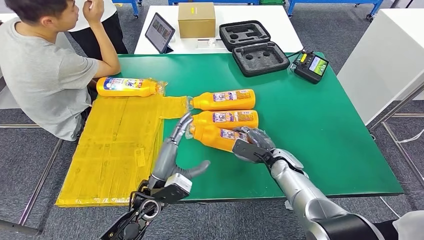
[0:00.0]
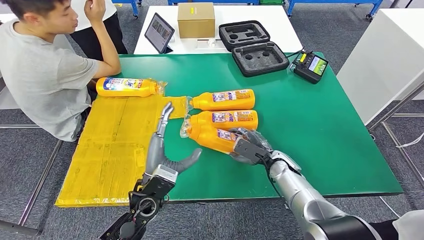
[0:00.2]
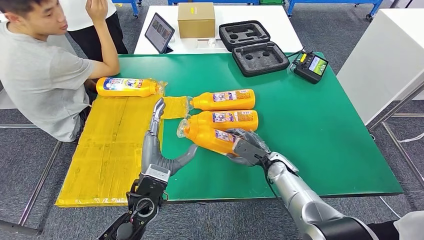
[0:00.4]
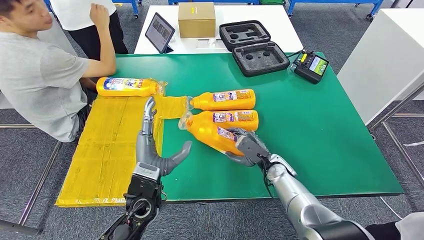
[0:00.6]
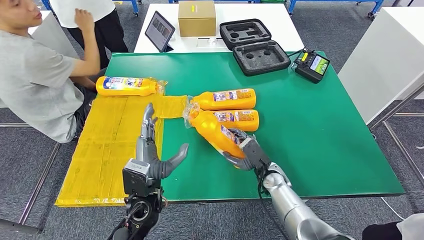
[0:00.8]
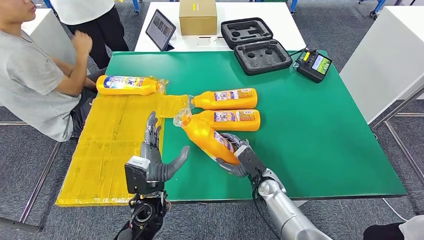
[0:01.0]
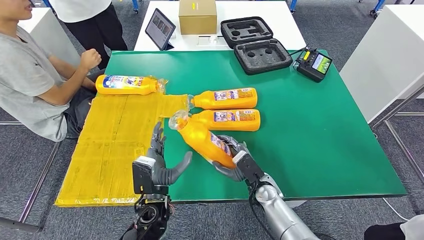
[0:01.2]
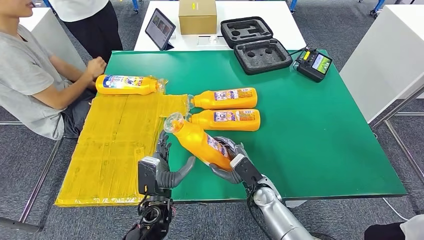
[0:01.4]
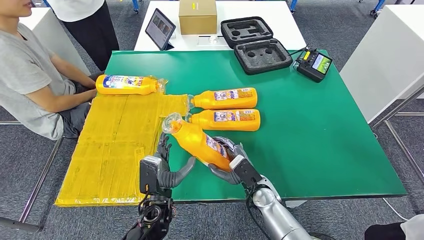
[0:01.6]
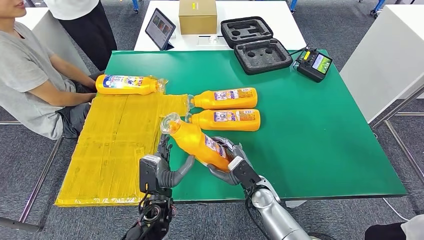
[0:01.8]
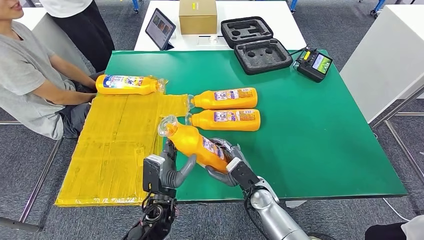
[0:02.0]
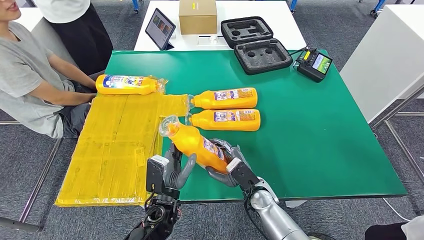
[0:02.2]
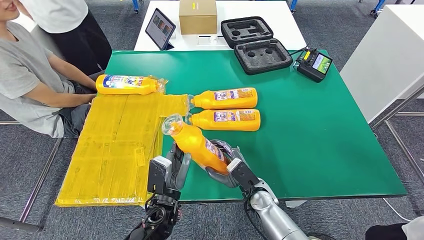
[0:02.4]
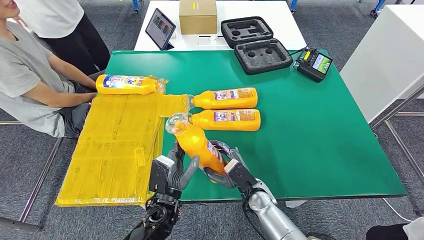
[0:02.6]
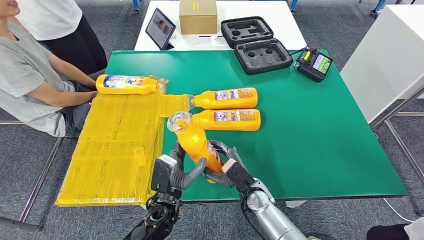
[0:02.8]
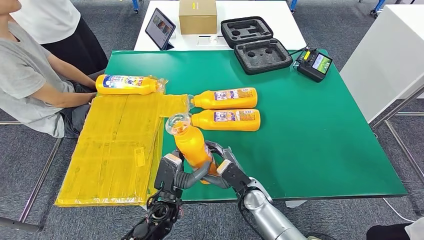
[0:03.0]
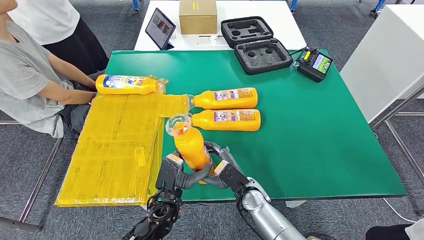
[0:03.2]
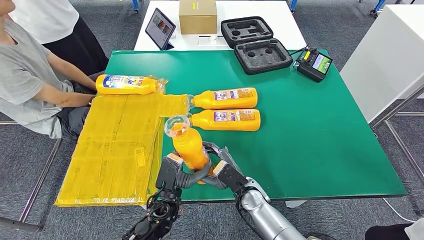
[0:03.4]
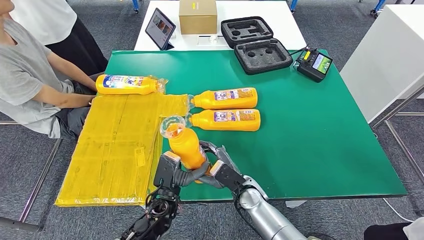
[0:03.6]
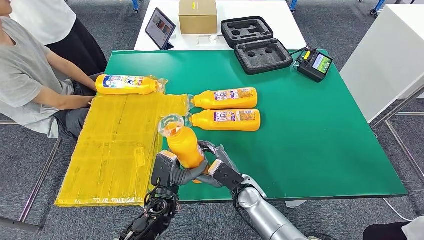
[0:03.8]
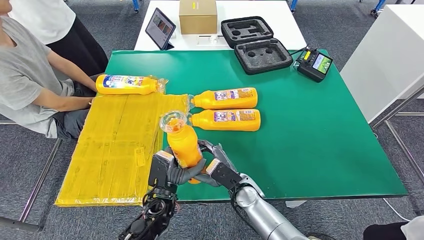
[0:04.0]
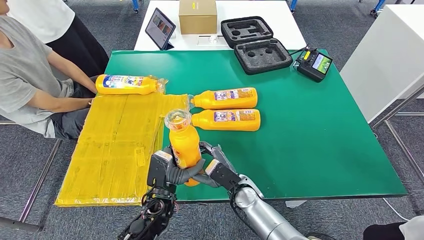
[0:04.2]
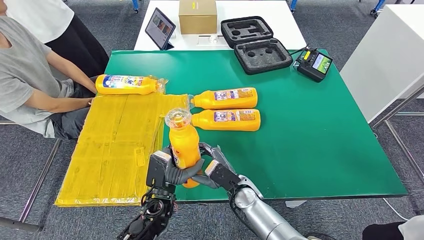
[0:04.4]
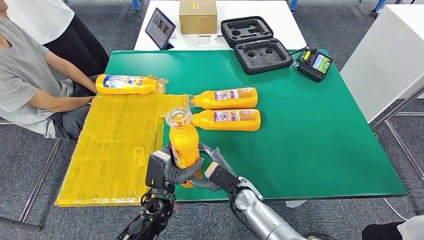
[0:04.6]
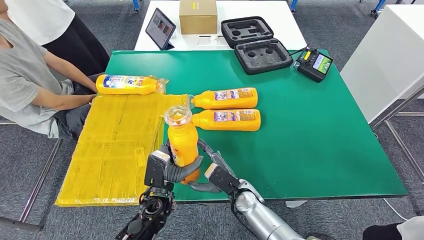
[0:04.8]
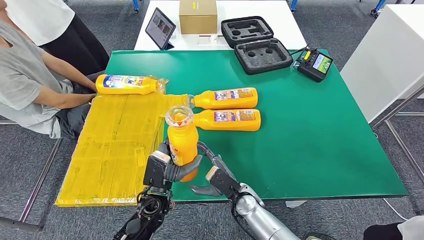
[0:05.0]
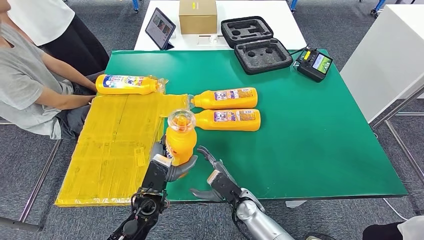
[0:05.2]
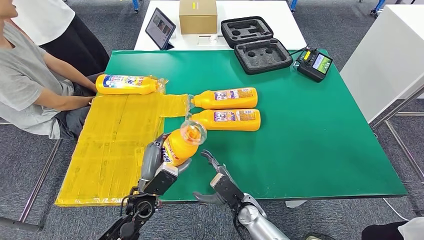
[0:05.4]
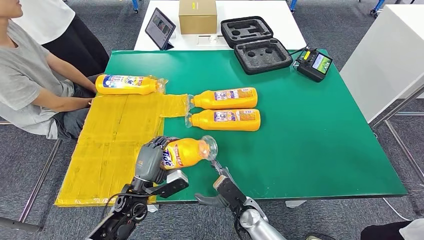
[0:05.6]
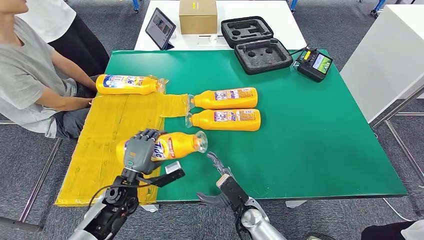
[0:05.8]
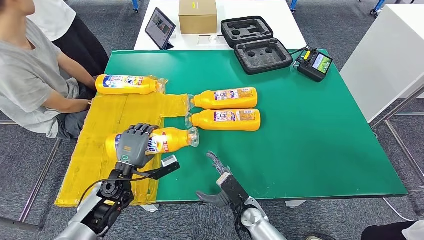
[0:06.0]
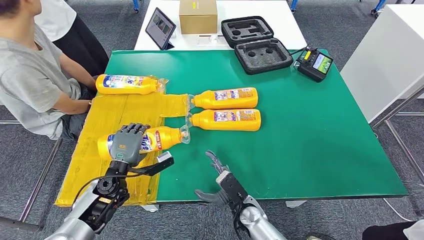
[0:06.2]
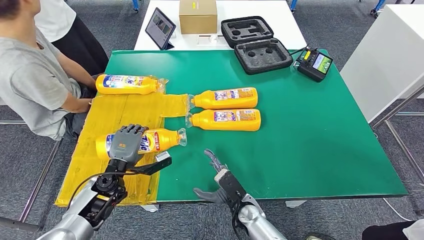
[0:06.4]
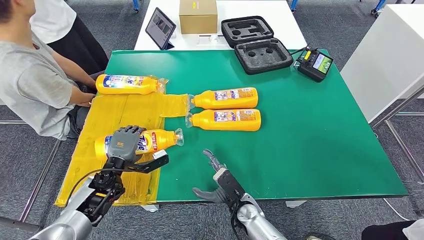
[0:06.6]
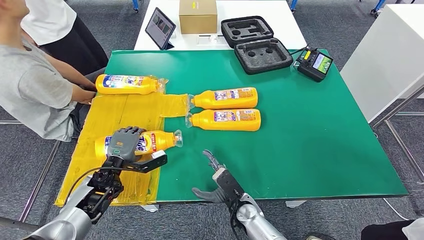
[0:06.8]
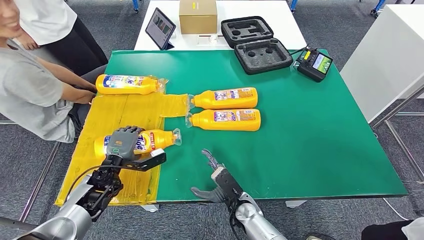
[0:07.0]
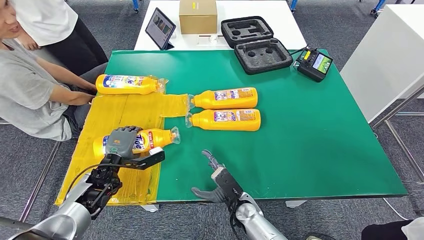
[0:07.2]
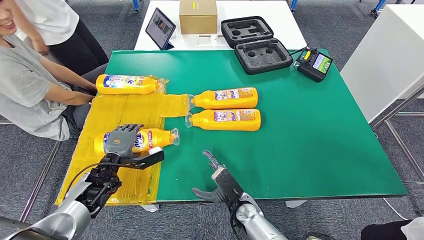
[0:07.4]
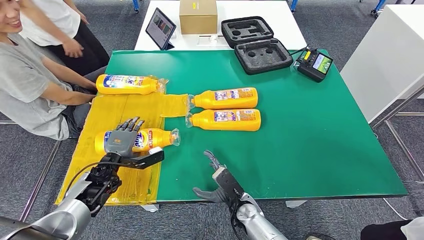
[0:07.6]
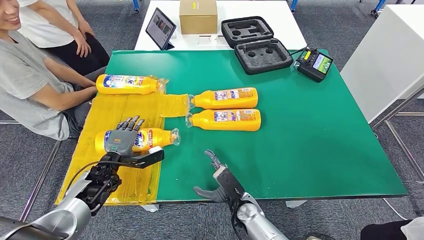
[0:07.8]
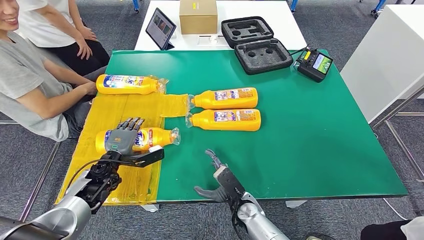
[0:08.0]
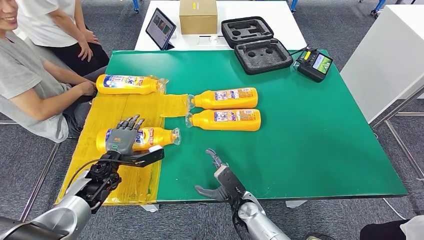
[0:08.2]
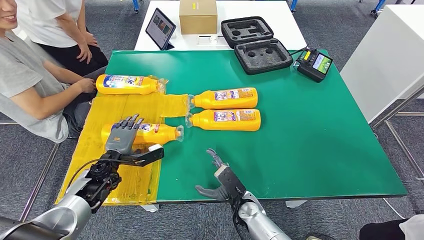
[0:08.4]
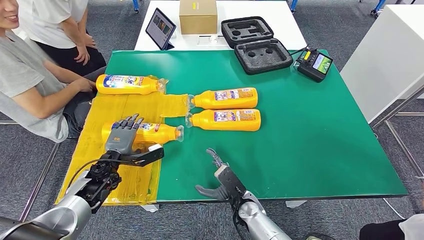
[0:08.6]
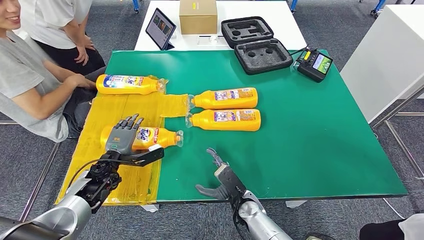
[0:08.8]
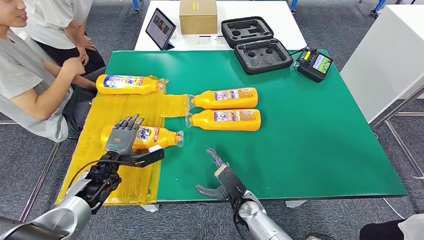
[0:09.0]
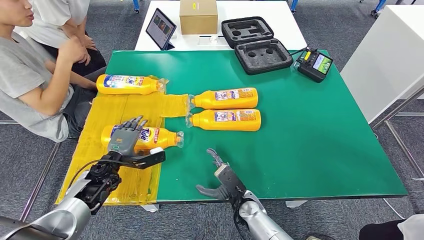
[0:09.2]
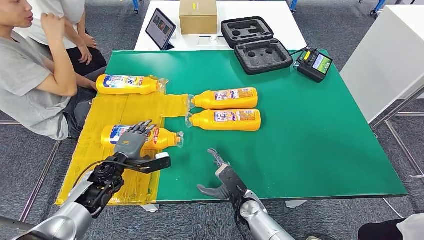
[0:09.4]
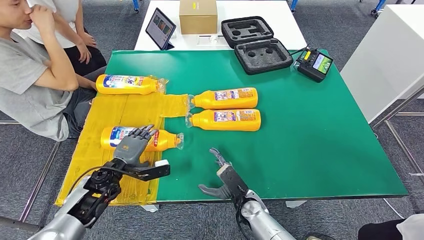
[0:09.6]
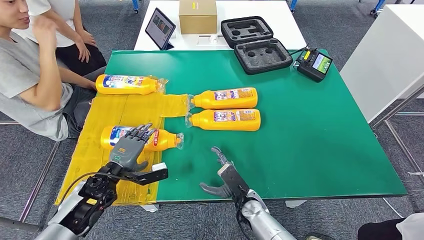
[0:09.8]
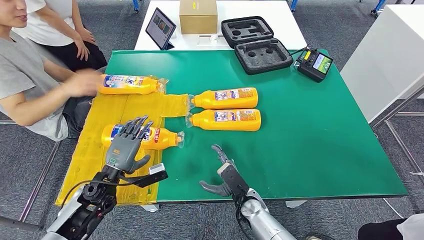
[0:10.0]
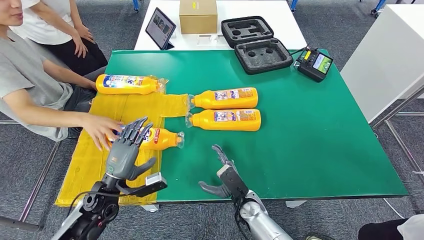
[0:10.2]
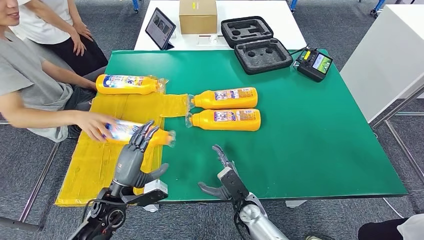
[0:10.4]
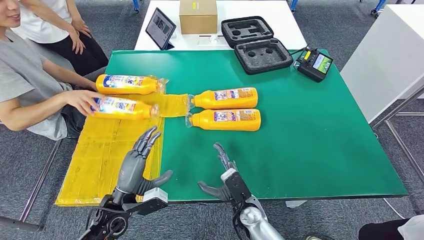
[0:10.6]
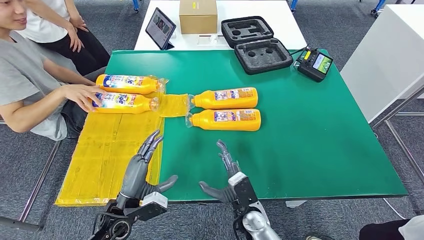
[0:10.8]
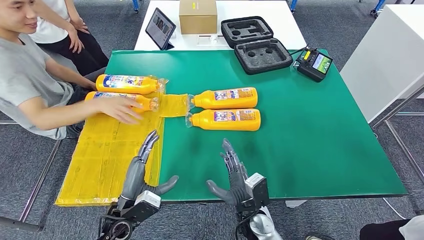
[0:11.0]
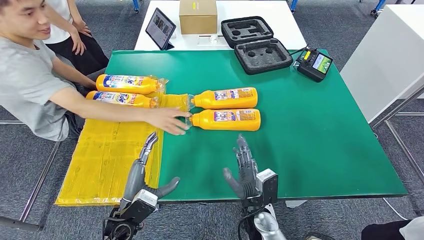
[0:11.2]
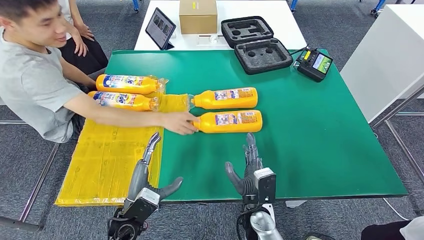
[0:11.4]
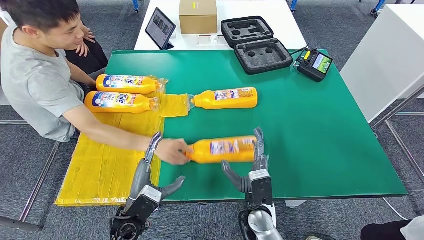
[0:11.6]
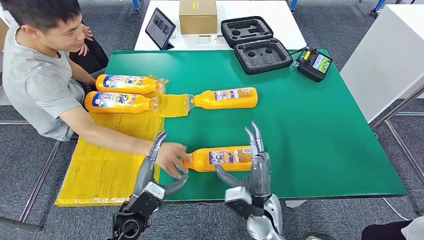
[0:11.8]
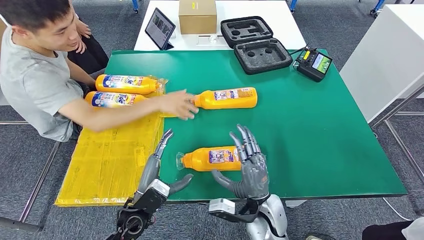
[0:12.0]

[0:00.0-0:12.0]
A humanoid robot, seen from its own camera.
Step, 0:00.0 to 0:02.4: Pick up the bottle from the table.
Step, 0:02.6 to 0:08.0: Flip the bottle to face forward.
0:01.6 to 0:04.4: There are only small adjustments of the hands.
0:04.4 to 0:06.0: The left hand moves to the left and forward, approximately 15 cm. Meanwhile the right hand ends up some 5 cm from where it was.
0:06.0 to 0:07.6: The left hand moves some 5 cm.
0:07.6 to 0:09.0: The two hands keep their place.
0:09.0 to 0:10.4: The left hand goes roughly 10 cm backward.

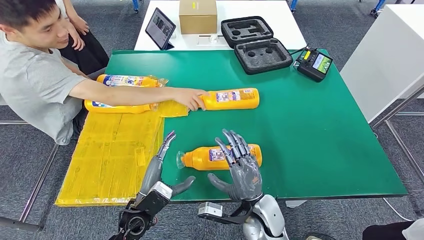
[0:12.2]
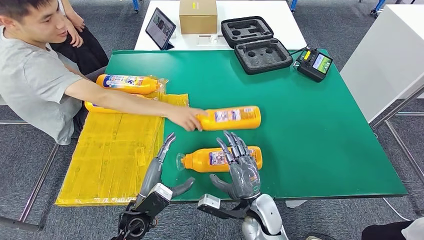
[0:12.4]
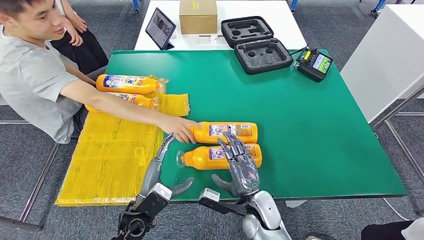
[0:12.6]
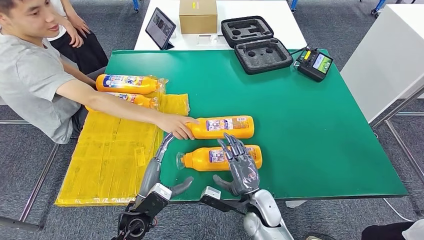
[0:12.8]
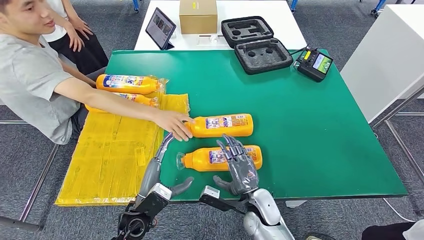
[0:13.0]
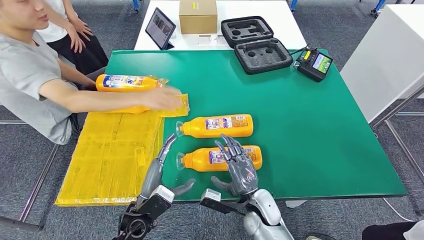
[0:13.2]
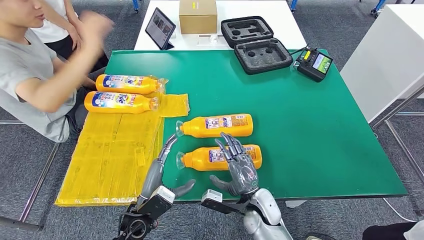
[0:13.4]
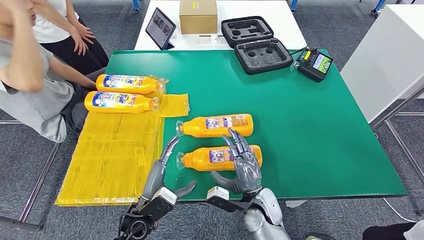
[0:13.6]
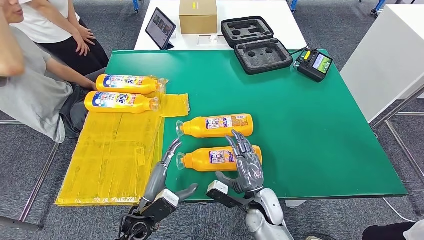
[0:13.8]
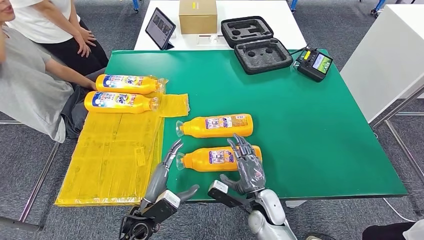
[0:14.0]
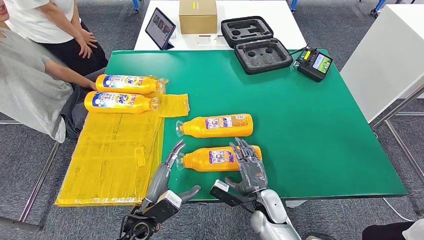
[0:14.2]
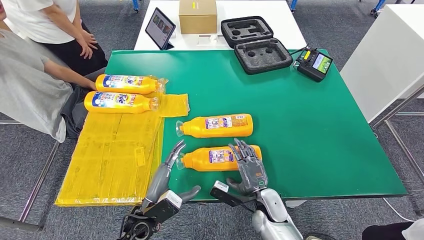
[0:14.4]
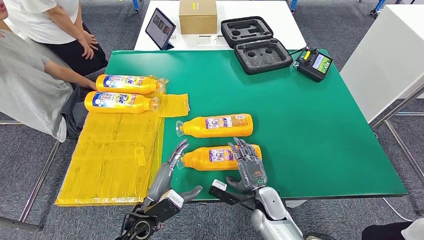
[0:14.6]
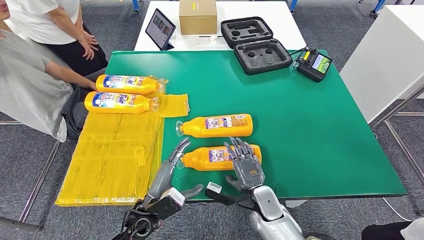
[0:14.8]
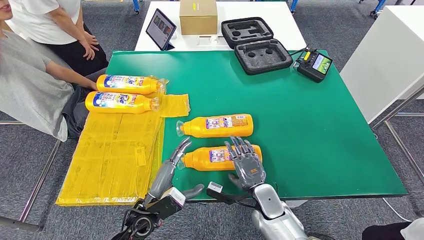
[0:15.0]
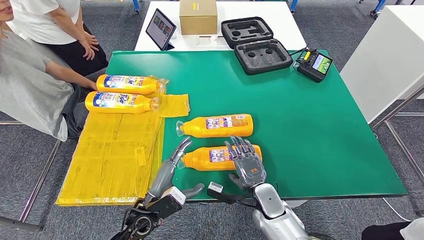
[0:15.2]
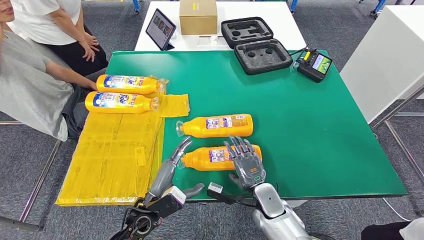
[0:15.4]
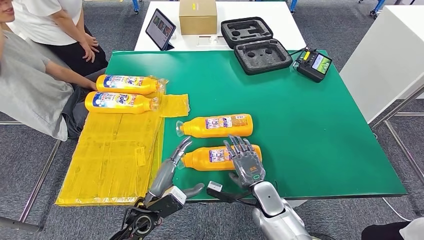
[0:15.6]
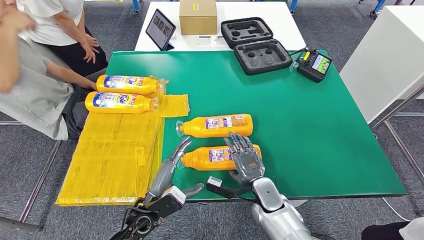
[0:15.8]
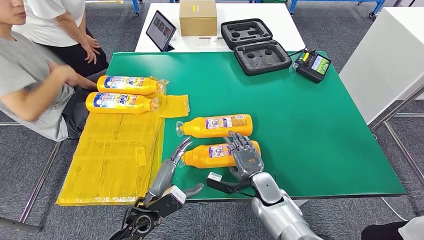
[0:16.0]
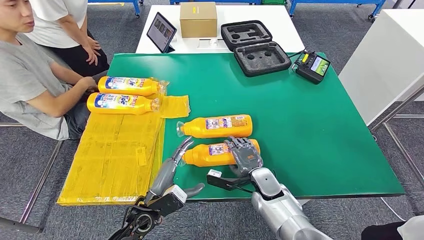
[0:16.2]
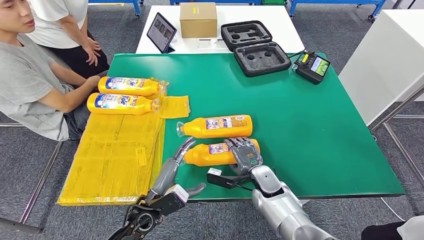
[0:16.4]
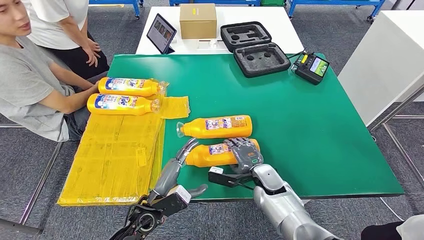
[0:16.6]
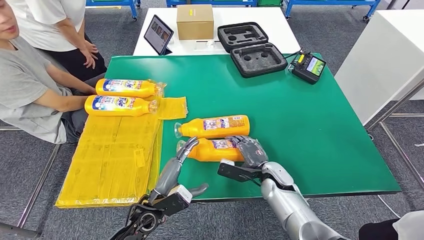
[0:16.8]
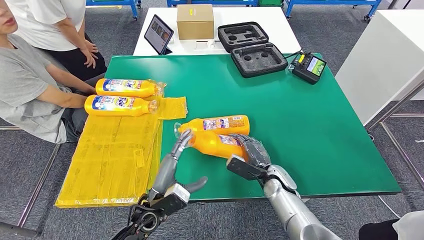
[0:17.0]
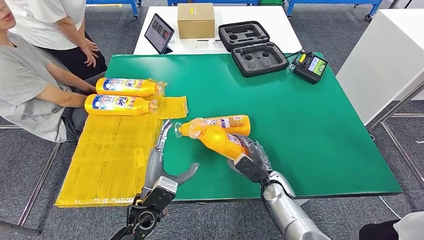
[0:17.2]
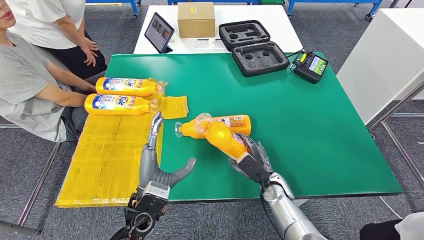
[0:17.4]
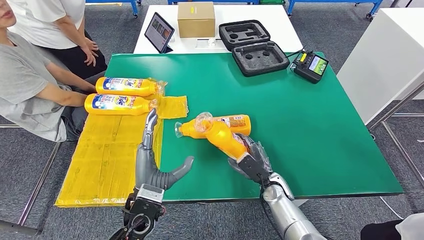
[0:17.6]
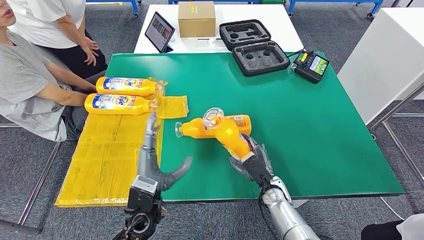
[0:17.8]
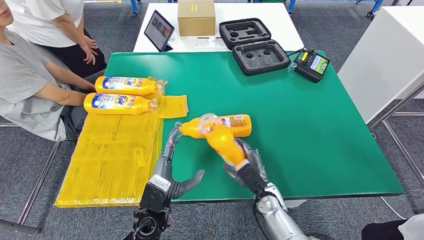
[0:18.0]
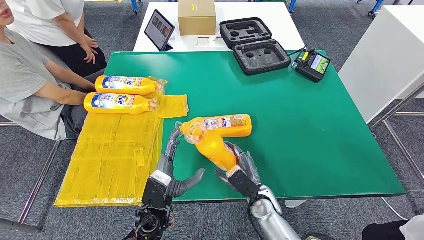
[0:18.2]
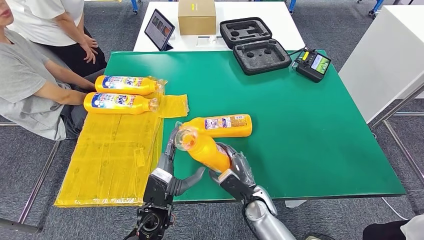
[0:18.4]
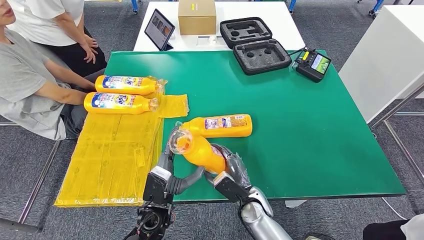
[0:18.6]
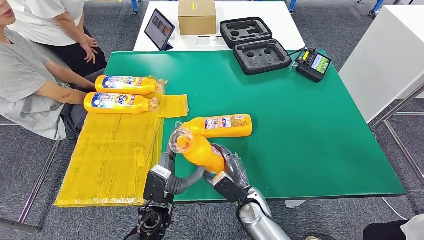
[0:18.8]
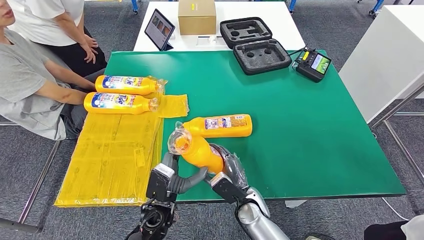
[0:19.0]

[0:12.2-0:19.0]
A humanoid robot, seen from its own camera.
Step, 0:14.2 to 0:18.6: Pick up the bottle from the table.
0:12.2 to 0:13.6: The hands make only small movements.
